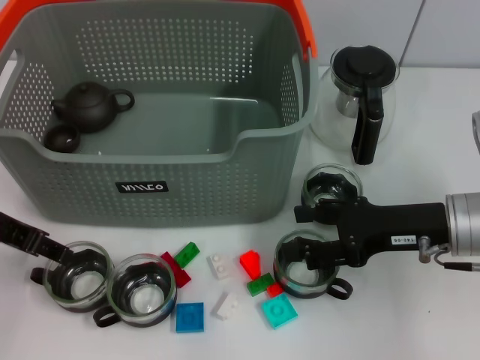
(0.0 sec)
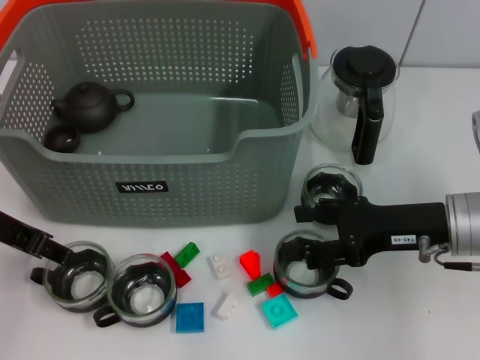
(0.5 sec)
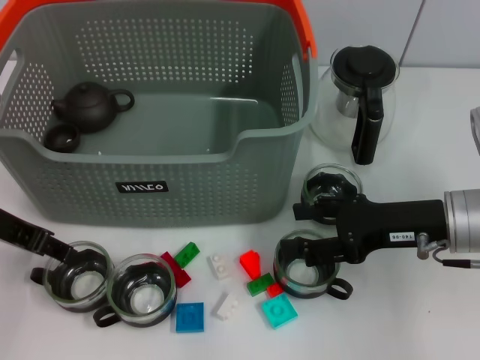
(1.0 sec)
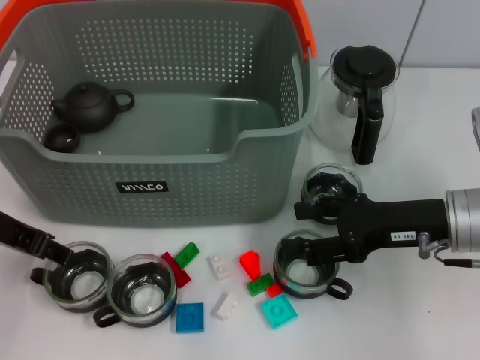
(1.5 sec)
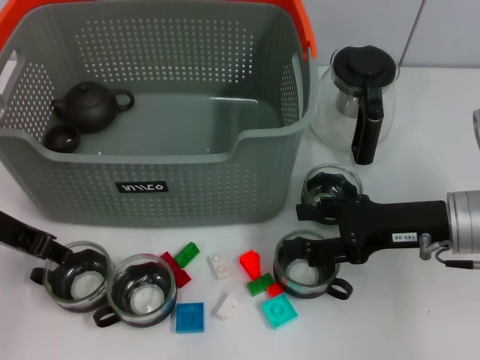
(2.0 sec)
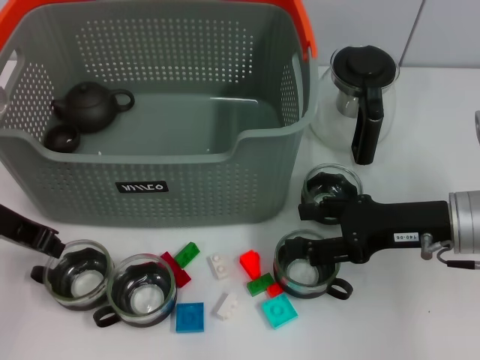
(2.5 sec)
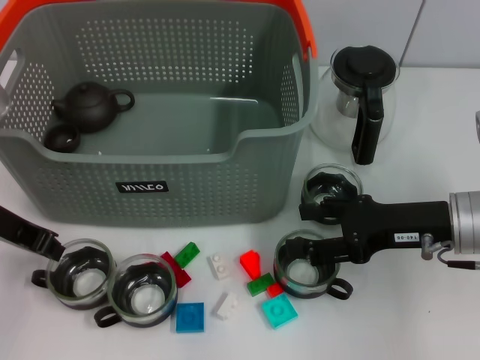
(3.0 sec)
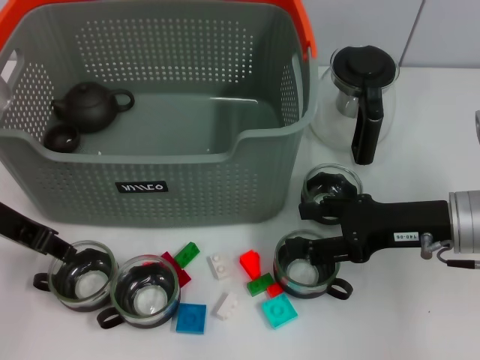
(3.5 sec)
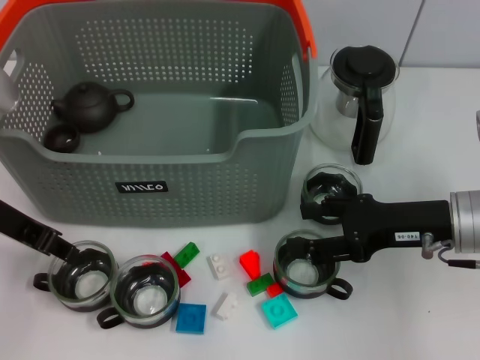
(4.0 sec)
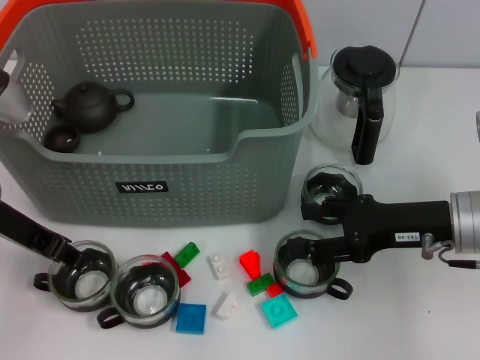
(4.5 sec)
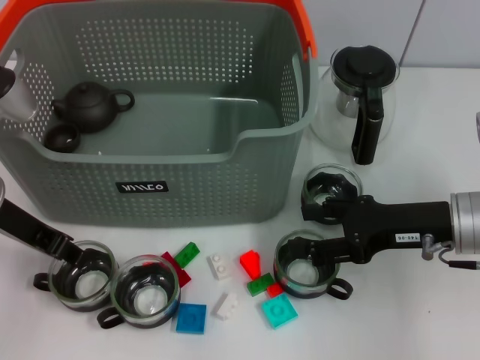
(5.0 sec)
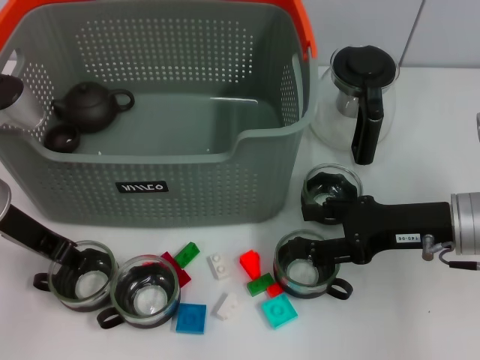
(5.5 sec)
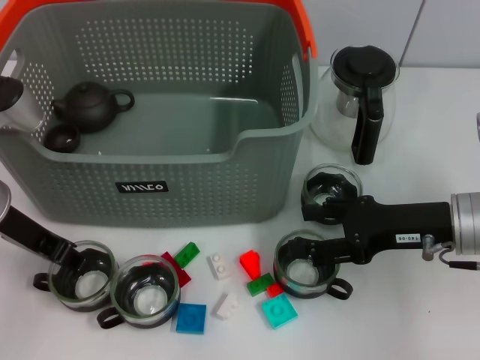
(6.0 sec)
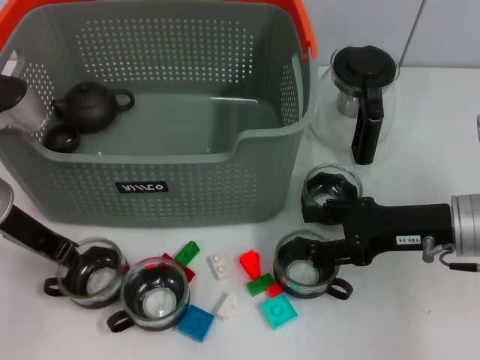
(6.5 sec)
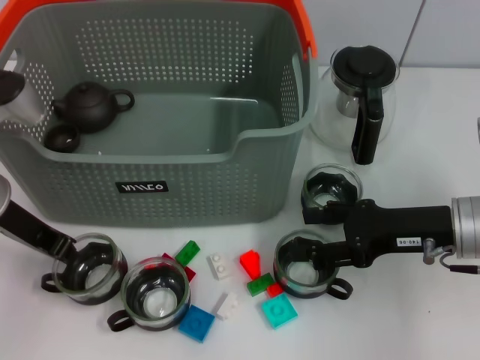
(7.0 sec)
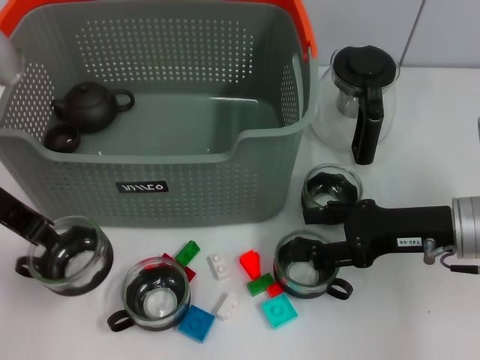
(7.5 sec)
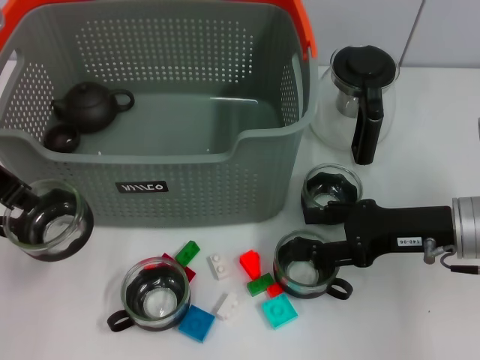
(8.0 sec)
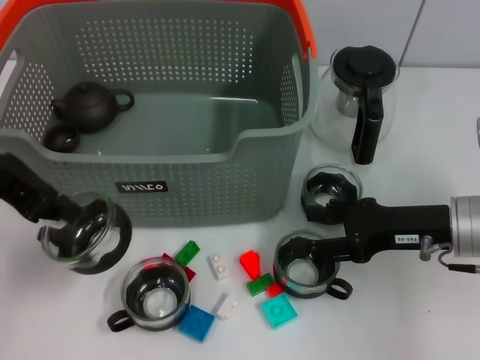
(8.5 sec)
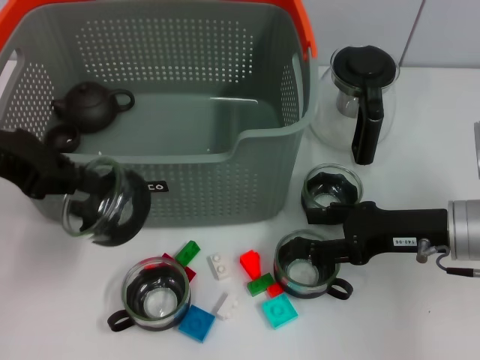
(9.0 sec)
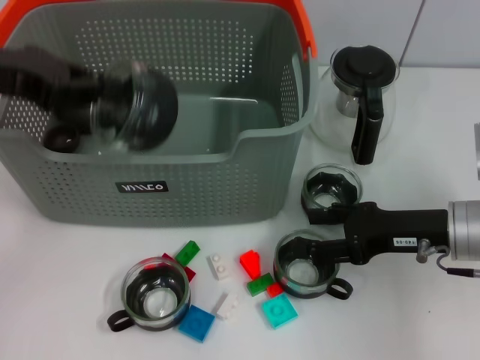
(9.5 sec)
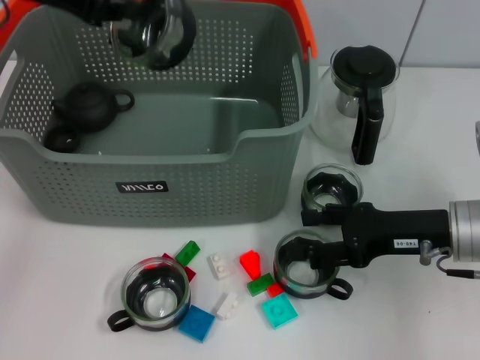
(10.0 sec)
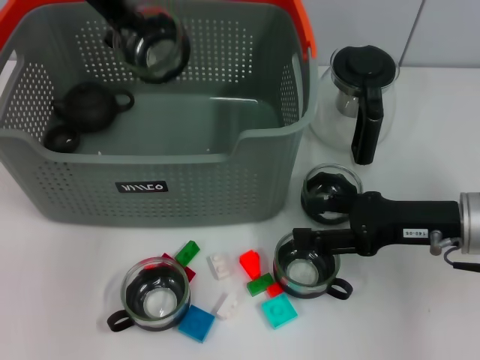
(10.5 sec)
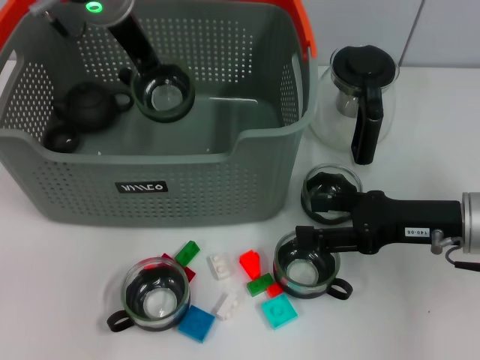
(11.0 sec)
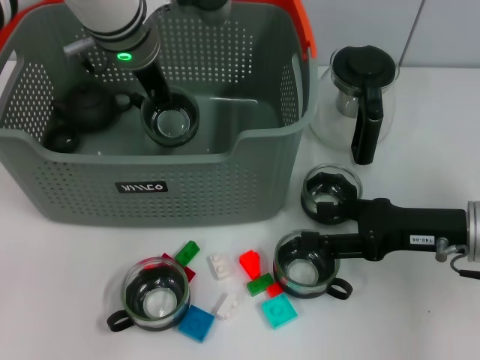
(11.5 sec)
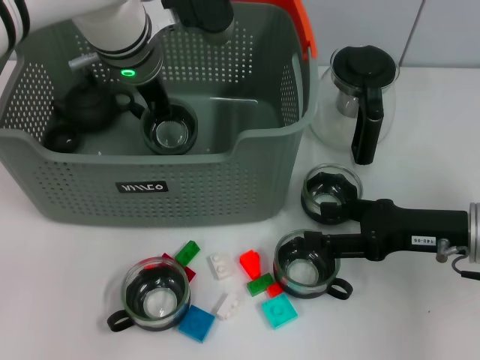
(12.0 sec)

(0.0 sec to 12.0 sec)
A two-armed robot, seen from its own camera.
Task of the whole recording: pick up the teacup on the table and place it into the storage bin, pick up the block on the table and place it into the storage bin.
Step, 0.0 sec - 5.5 sec: Grasp the cup with left gripper.
0.0 sec - 2.0 sec: The two grippers keep their place.
2.0 sec - 4.0 sec: The left gripper closes, then opens again.
4.0 sec - 6.0 sec: The grippers stay close to where they were, moving slightly.
6.0 sec - 8.0 sec: The left gripper is displaced upward by roughly 10 cm, and closes up.
8.0 sec - 10.0 sec: The left gripper moves forward, some 10 cm.
10.0 sec - 12.0 sec: The left gripper goes roughly 20 cm to the right, downward and forward.

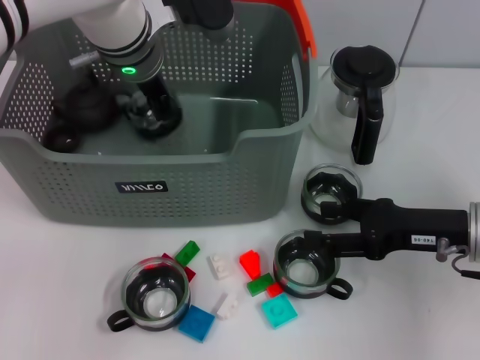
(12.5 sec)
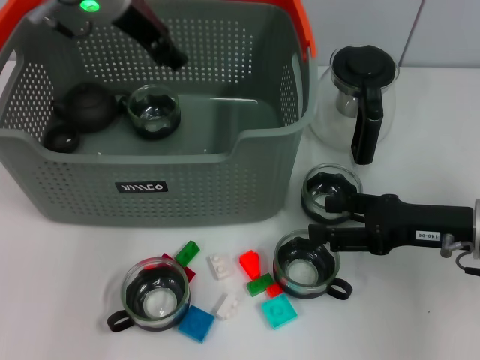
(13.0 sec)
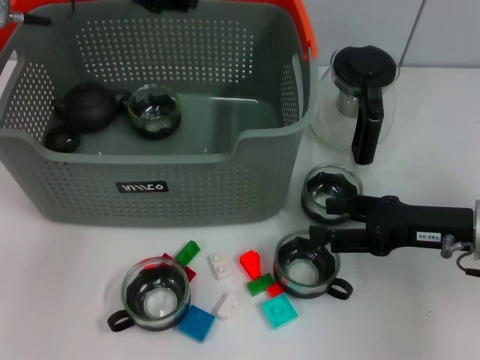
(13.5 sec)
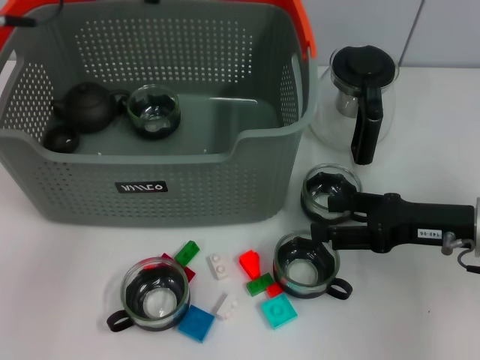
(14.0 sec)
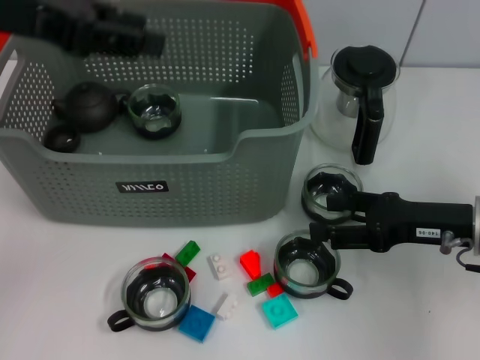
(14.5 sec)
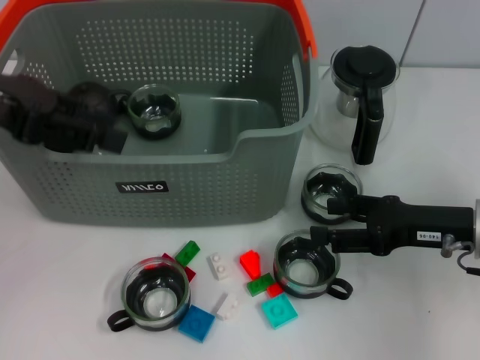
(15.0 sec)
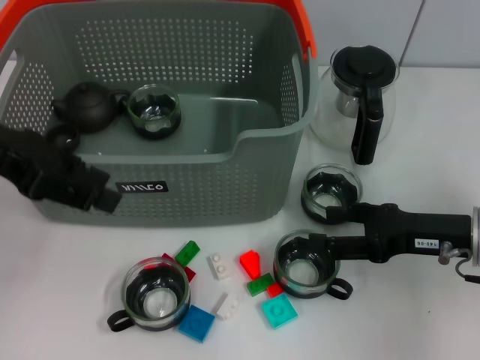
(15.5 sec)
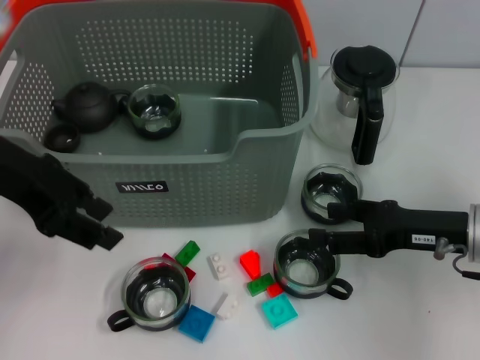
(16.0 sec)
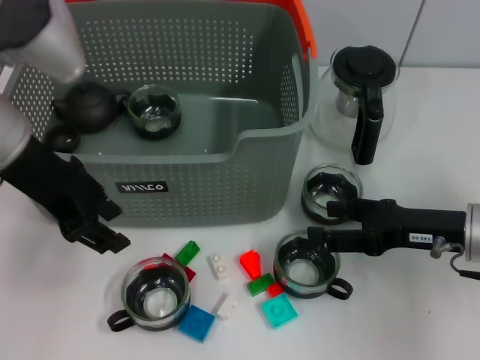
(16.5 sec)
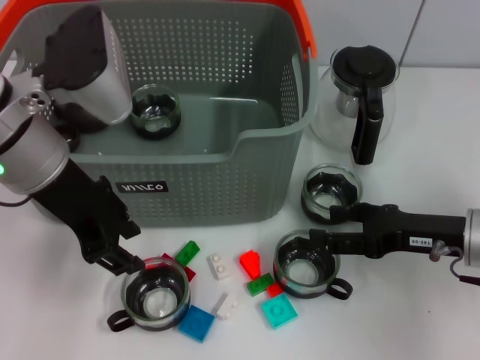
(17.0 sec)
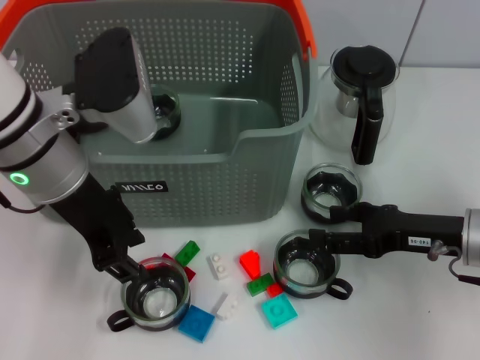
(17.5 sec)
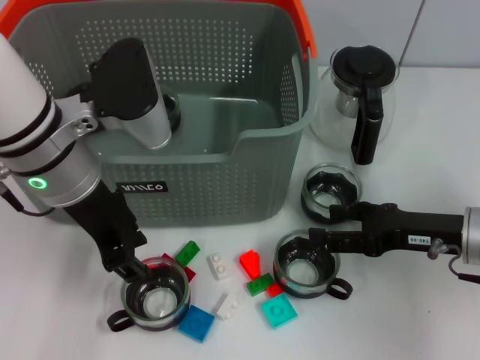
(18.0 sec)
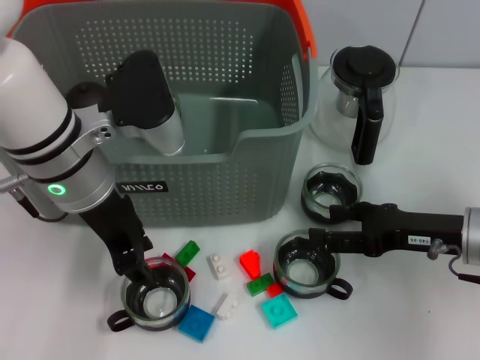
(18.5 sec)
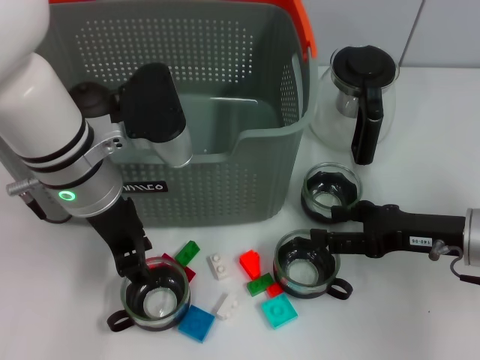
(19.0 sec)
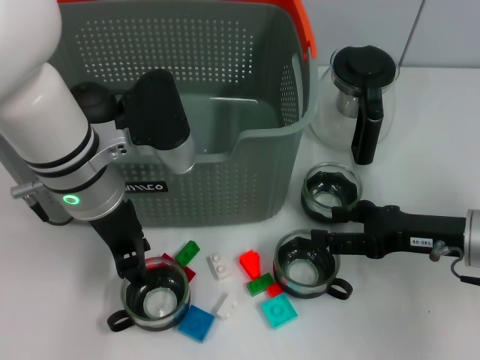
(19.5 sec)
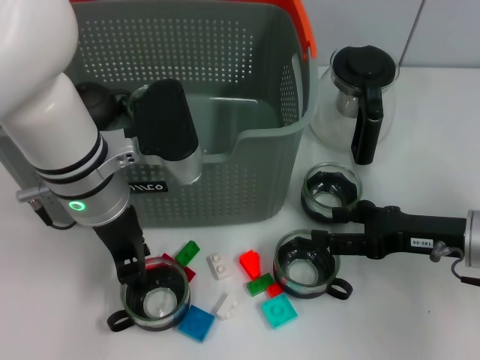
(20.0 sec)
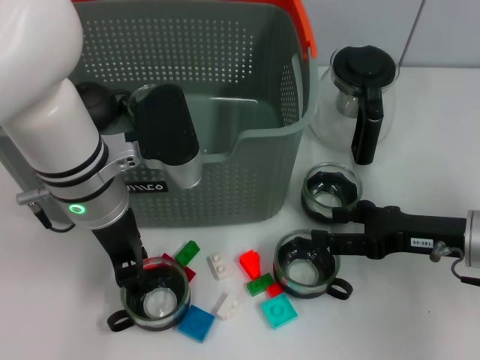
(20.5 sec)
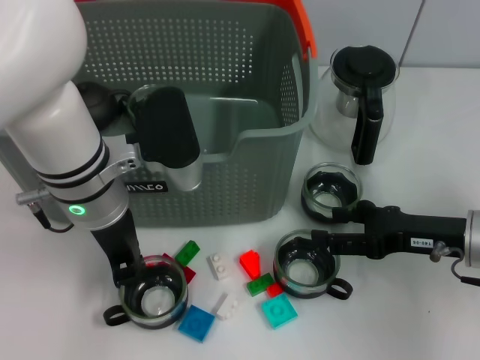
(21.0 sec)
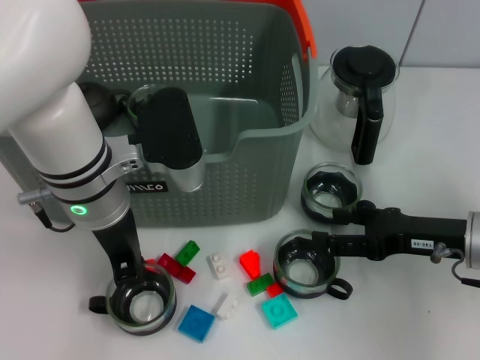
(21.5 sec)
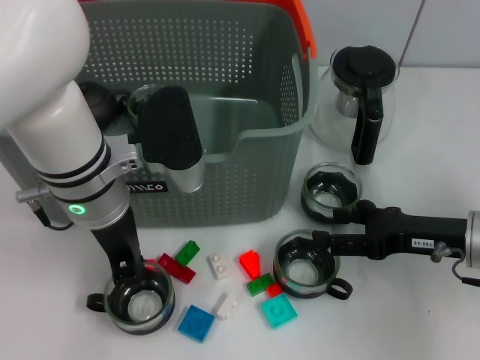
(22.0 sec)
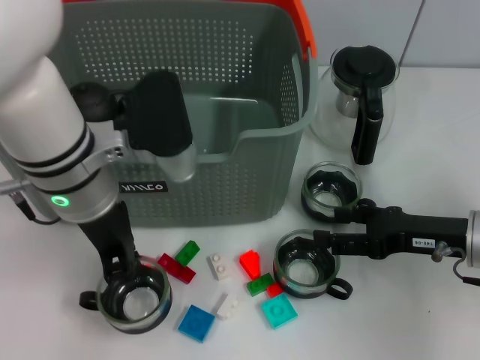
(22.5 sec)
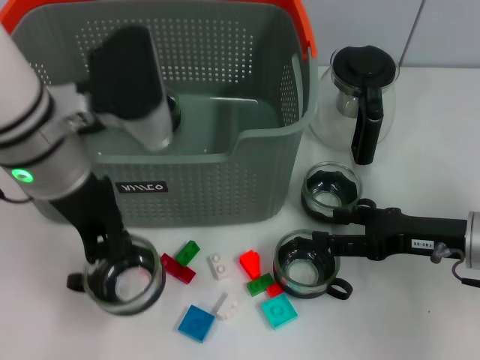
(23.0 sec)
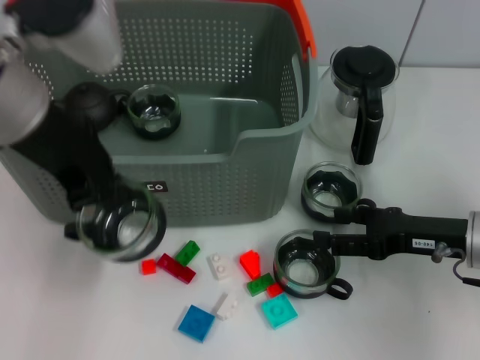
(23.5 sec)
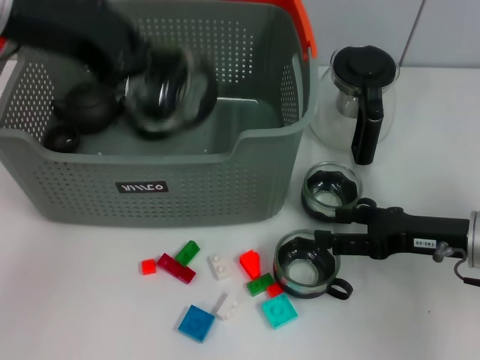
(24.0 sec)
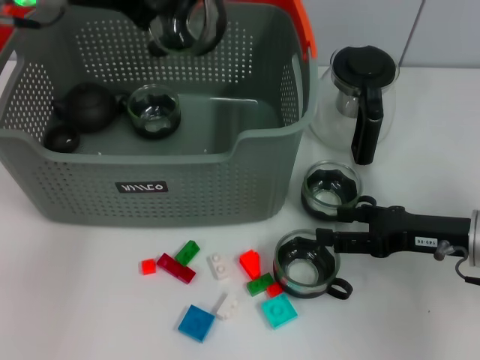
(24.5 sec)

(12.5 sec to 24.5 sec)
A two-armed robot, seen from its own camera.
Task of the whole recording: pick up the teacup on the table and place it into the storage bin, pick up the block on the table and place it into the storage bin.
Step, 13.5 sec - 21.5 sec: Grasp the cup with left gripper.
12.5 sec - 14.5 sec: The left gripper travels to the left, backward and upward by approximately 20 cm, and opens.
14.5 sec - 16.5 sec: The left gripper shifts approximately 5 cm downward.
16.5 sec - 18.5 sec: The left gripper moves to the right and downward, approximately 10 cm.
18.5 sec - 20.5 sec: The grippers move only a little.
20.5 sec - 22.5 sec: The left gripper closes its fingers.
22.5 sec - 24.5 sec: The left gripper shifts roughly 15 cm upward, forward and to the left.

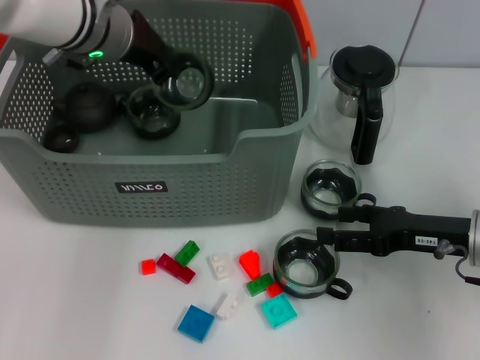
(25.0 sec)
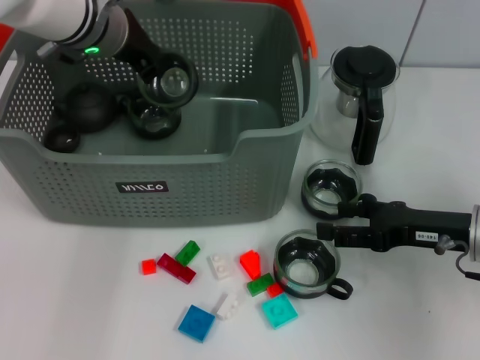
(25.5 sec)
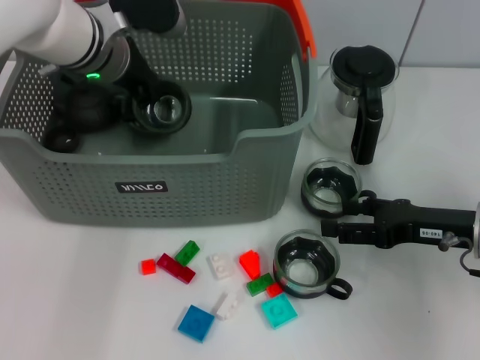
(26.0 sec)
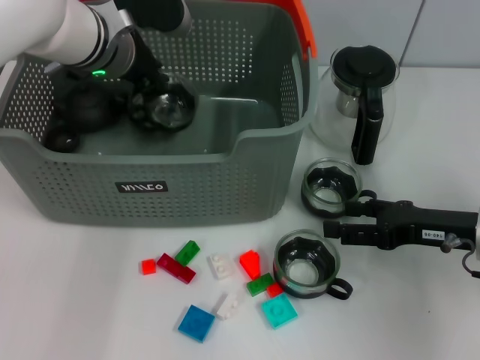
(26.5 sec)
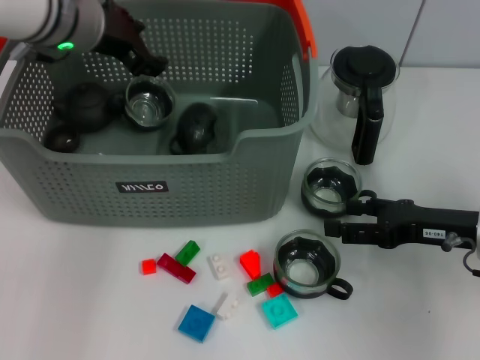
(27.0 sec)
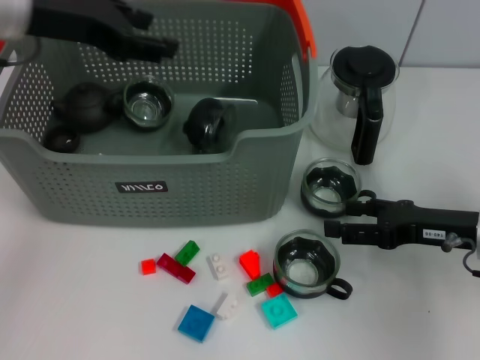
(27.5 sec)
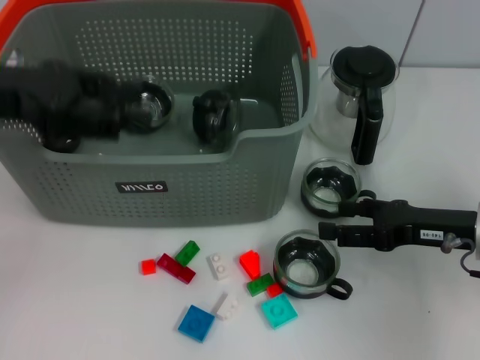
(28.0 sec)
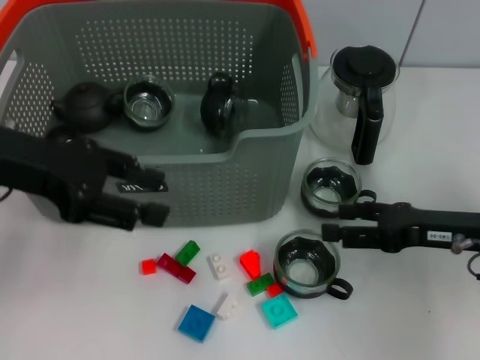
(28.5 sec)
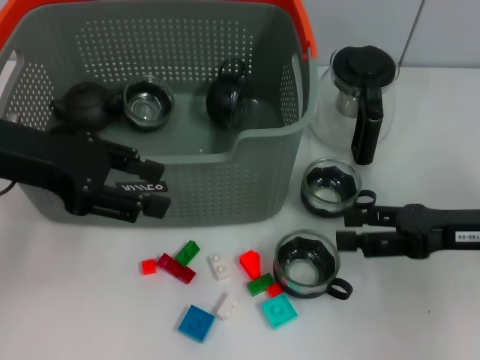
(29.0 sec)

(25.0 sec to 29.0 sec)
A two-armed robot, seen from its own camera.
Task of the whole recording: pick up the teacup on the table and place it into the storage bin, pick up the block on the table and place it into the storage bin.
Step, 25.0 sec - 27.5 sec: Place the cup in the storage box with left gripper.
25.0 sec - 27.0 sec: The left gripper opens up.
27.0 sec - 29.0 sec: The left gripper moves backward and to the left, approximately 15 cm.
